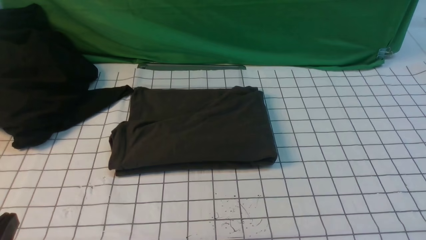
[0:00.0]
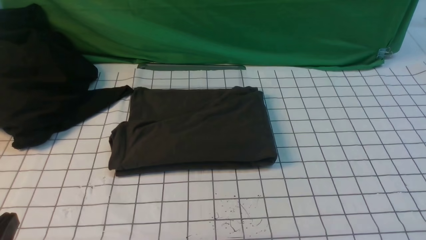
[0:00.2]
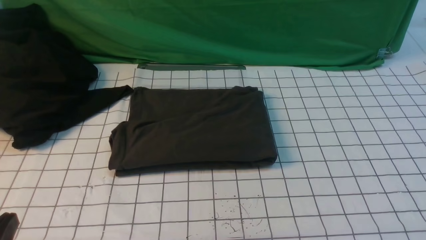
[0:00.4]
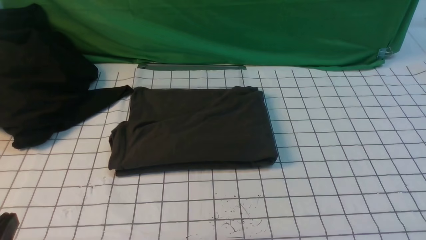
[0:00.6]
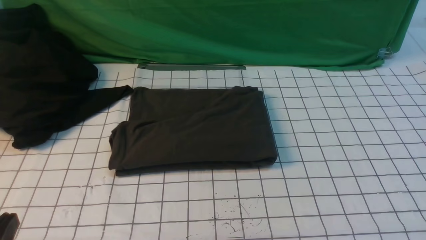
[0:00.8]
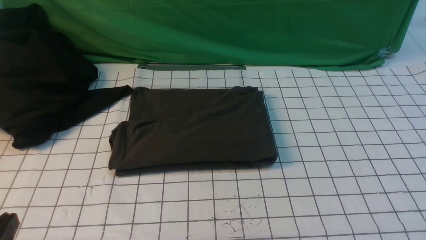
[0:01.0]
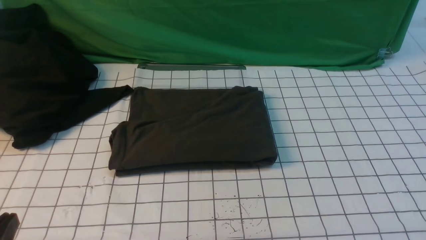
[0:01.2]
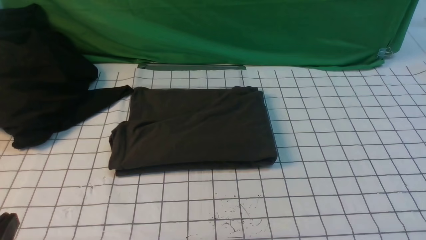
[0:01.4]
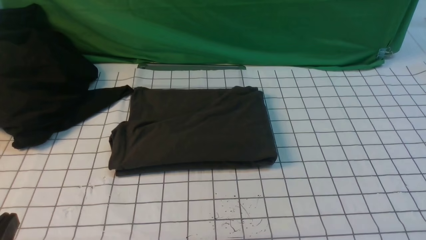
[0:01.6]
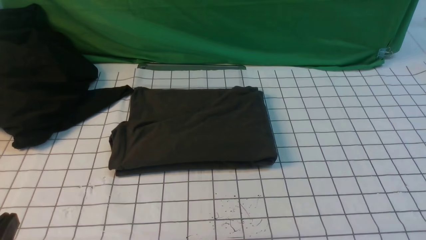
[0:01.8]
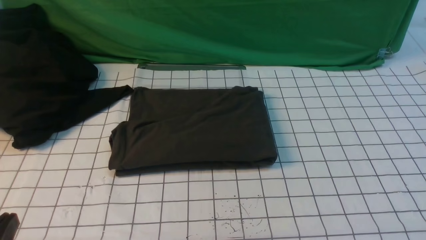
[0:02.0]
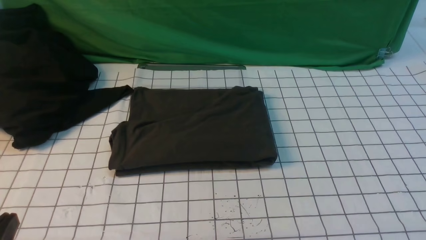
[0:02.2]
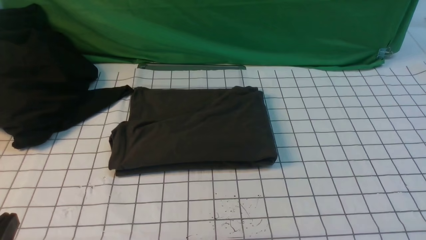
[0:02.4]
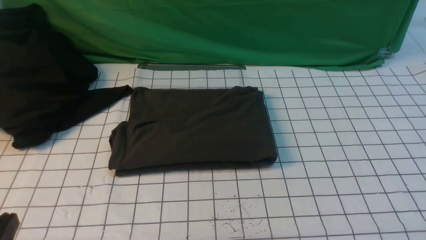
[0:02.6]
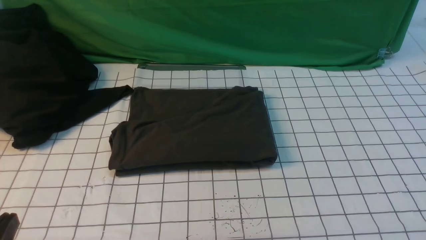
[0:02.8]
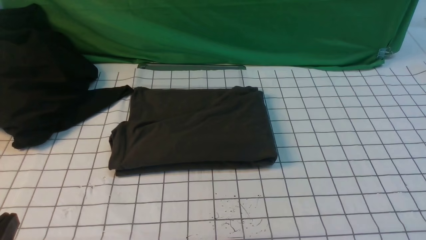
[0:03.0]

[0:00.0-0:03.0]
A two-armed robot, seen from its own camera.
0:01.6 to 0:03.0: The two grippers keep their place.

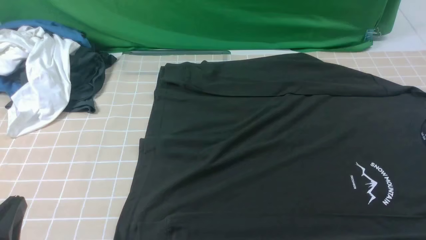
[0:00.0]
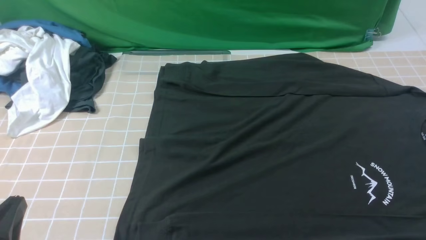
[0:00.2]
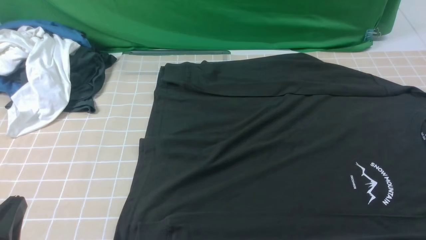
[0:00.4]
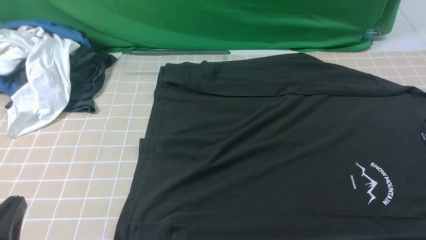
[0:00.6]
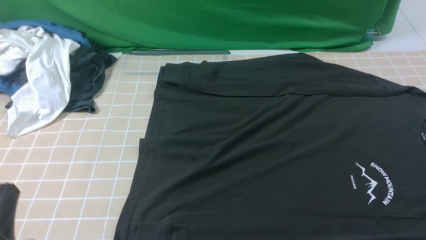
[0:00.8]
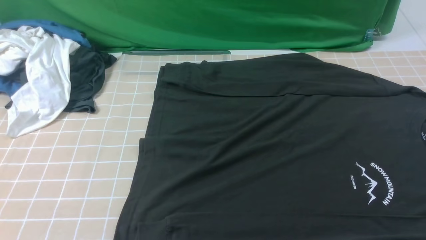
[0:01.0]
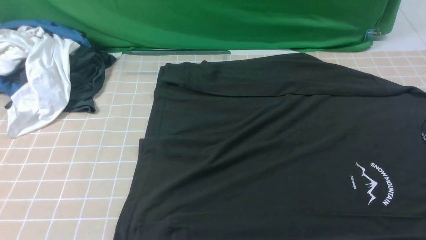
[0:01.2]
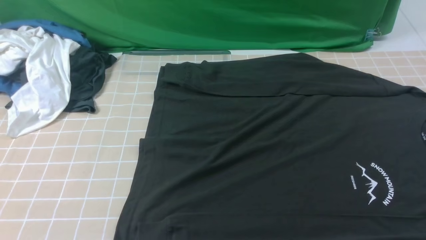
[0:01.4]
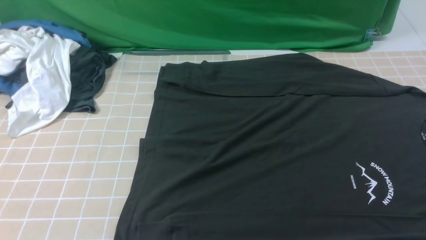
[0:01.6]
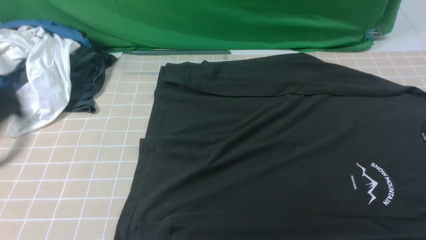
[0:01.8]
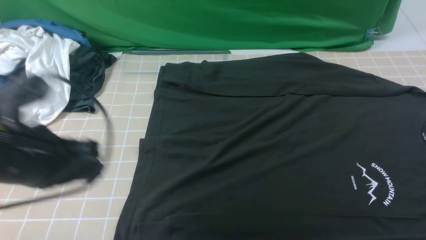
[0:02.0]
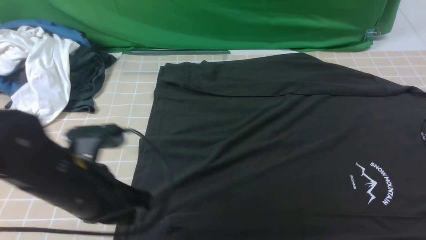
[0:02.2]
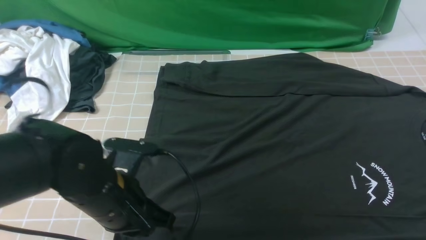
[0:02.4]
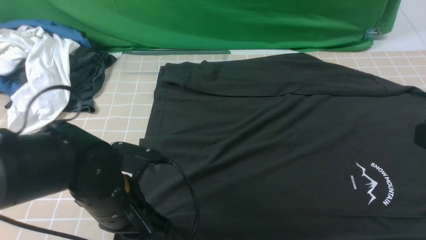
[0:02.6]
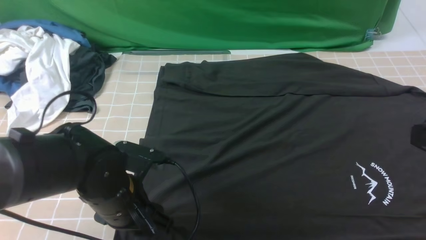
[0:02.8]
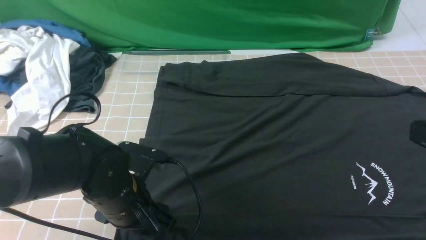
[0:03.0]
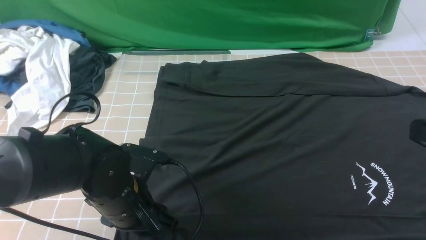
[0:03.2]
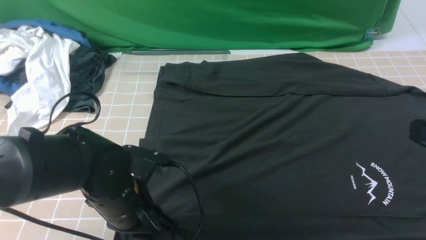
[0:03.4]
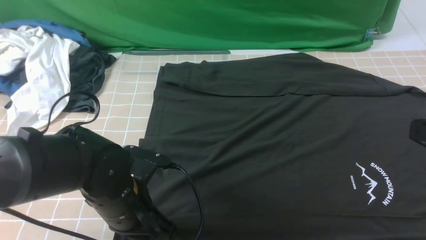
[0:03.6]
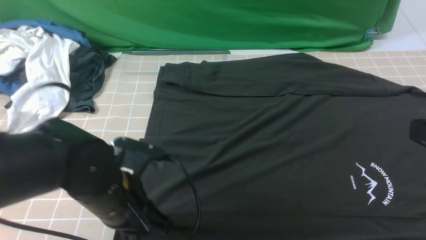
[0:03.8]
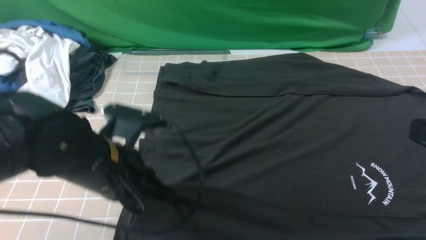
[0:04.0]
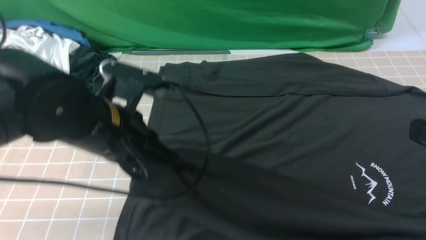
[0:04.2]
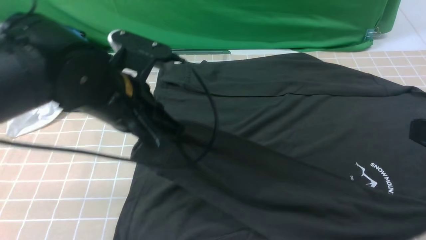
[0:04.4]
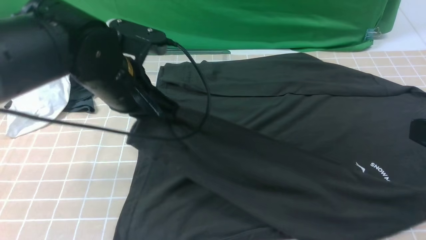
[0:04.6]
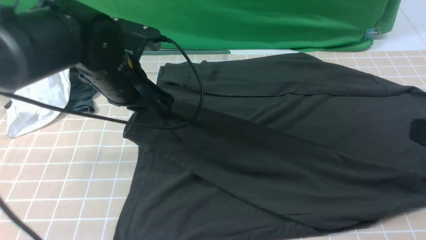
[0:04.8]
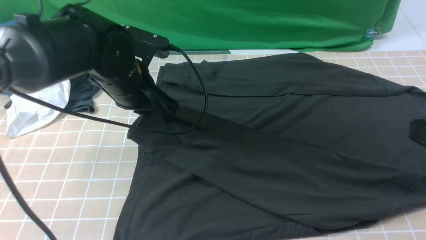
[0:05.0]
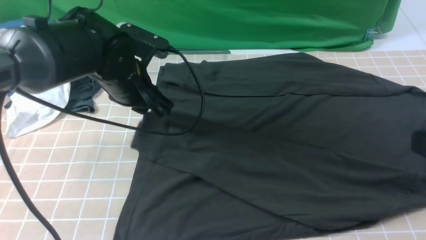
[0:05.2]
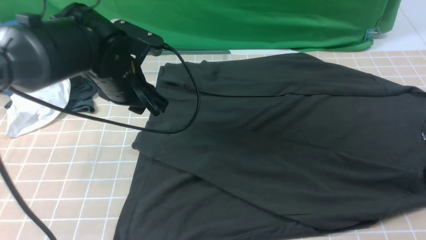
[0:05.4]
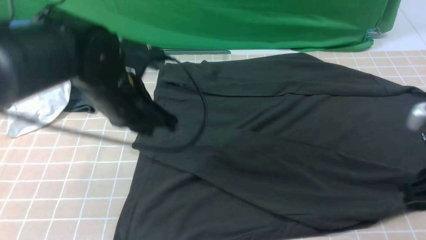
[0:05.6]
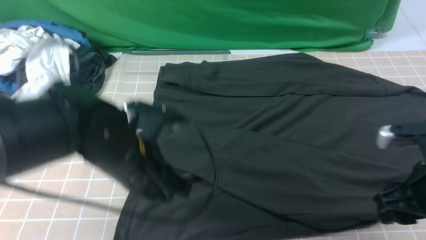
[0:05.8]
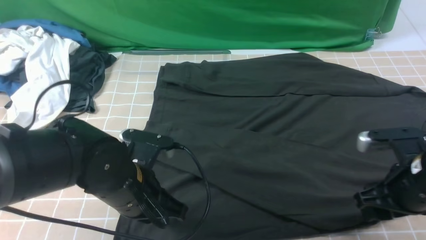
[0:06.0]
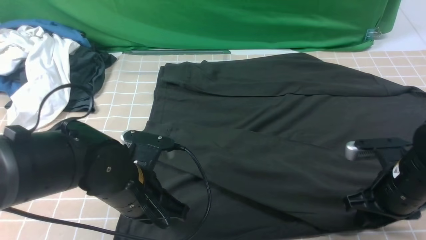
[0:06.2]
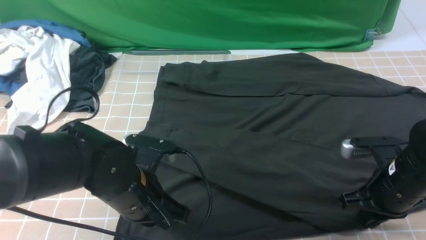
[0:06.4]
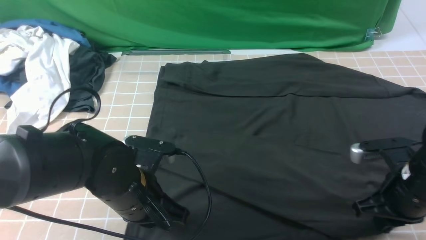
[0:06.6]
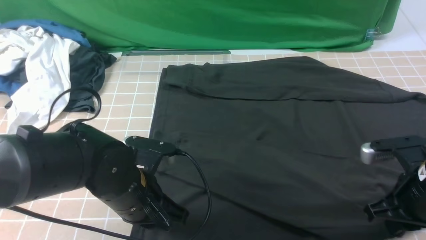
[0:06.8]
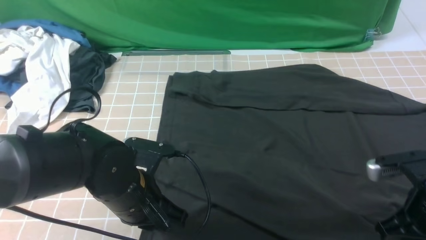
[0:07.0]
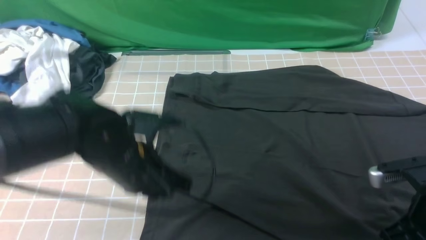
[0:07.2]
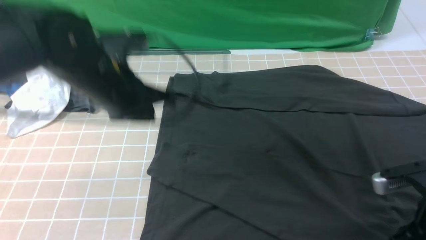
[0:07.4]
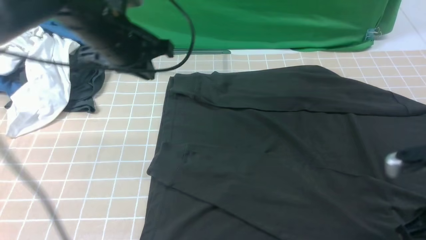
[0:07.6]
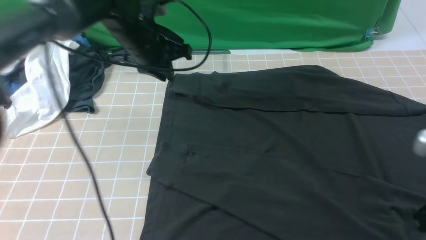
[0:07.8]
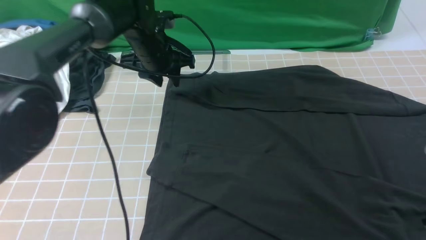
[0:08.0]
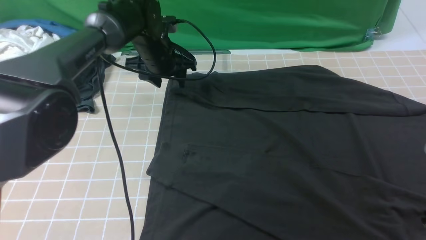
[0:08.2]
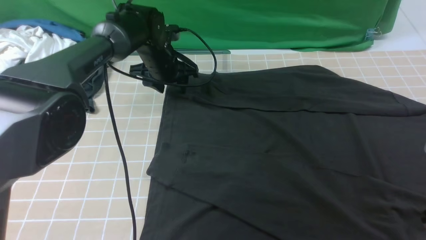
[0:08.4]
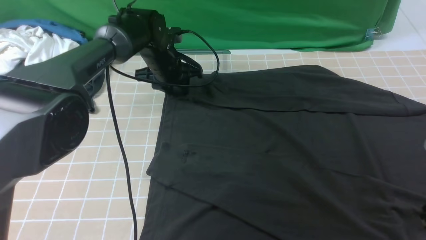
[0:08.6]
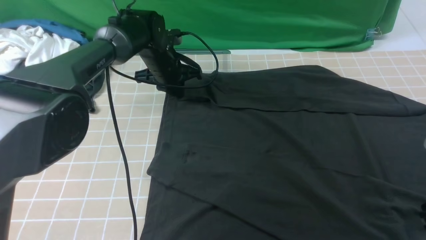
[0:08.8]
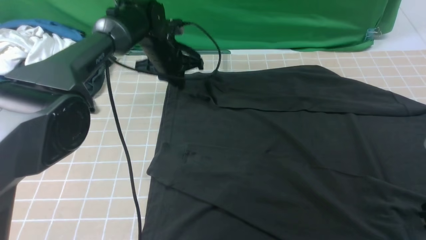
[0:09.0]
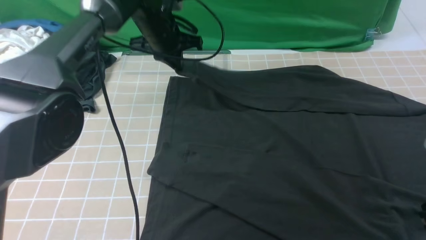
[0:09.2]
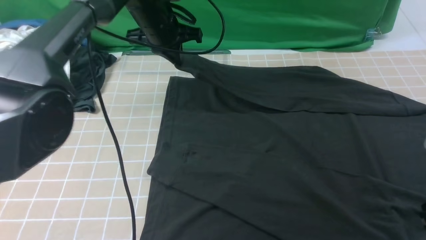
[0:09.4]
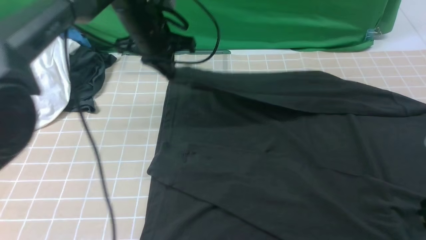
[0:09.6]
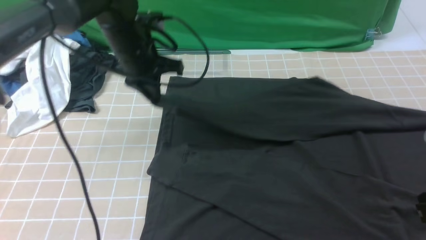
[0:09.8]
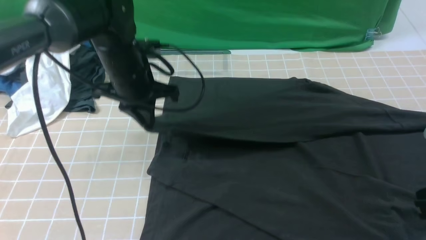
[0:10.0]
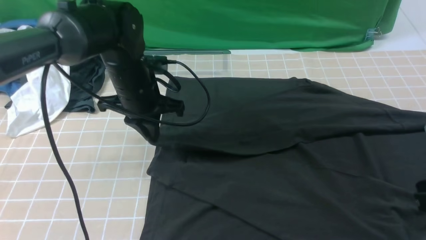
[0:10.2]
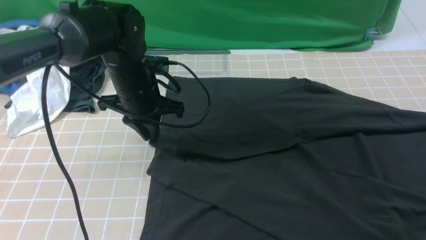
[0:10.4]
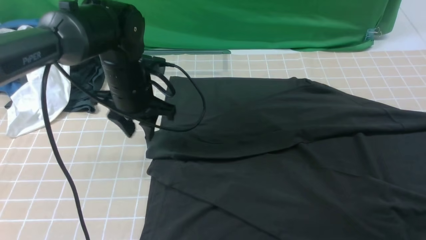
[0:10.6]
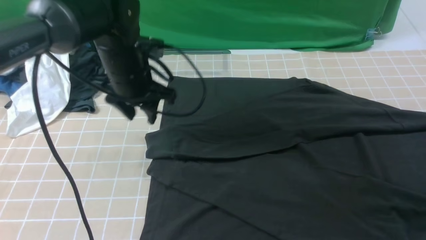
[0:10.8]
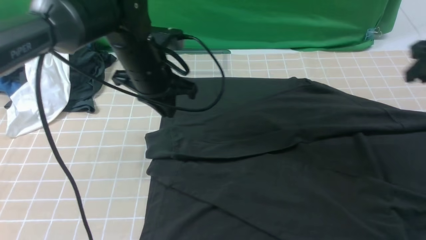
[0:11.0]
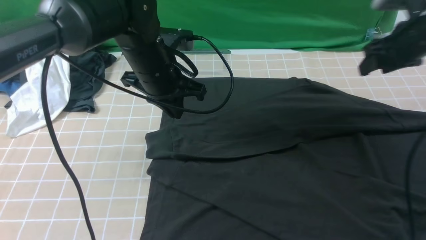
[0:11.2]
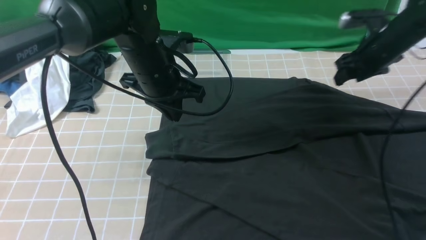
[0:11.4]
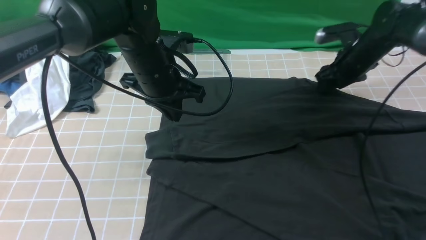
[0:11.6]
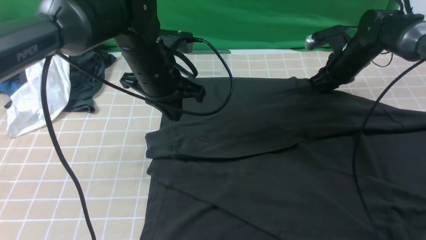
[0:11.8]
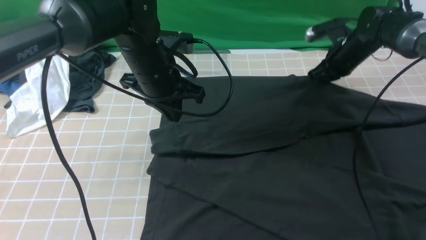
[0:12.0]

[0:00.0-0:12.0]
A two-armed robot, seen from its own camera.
Step, 0:00.0 to 0:03.6: use the left arm to clamp the cuff closest to it.
Step, 0:03.8 to 0:05.2: use the left arm to drag and place the cuff at the centered position on the left edge of the fabric.
Step, 0:05.6 to 0:08.8: use the left arm to clamp the cuff farthest from it.
Step, 0:09.0 to 0:10.4: use the left arm to drag and drop the cuff onto the cuff closest to the left arm.
0:00.0 to 0:01.6: The left gripper goes some 15 cm upward.
0:01.6 to 0:03.0: The left gripper heads downward, to the right and forward, covering some 25 cm, and opens. Meanwhile the right gripper shifts some 15 cm upward, forward and to the left, and closes up.
0:03.0 to 0:04.4: The left gripper goes some 15 cm upward and forward, and closes.
0:04.4 to 0:06.0: The right gripper moves downward and forward, roughly 20 cm, and opens its fingers, while the left gripper is displaced downward and backward by approximately 10 cm.
0:06.0 to 0:07.6: The right gripper heads backward, covering approximately 5 cm, and closes up. The left gripper goes roughly 20 cm forward and upward.
0:07.6 to 0:09.0: The left gripper shifts some 15 cm forward and downward, and opens and closes again.
0:09.0 to 0:10.4: The right gripper shifts by about 5 cm; the left gripper goes some 15 cm backward.
0:10.4 to 0:12.0: The right gripper moves forward, approximately 35 cm, and opens and closes again. The left gripper changes place by roughly 5 cm.

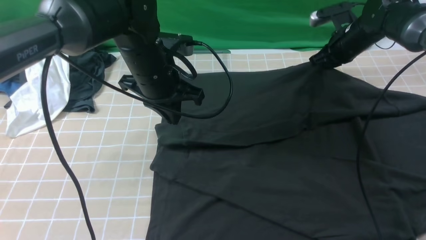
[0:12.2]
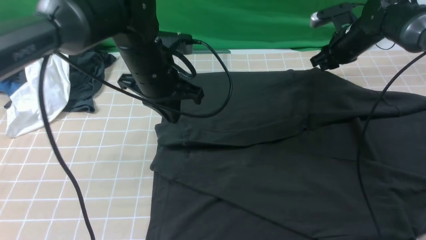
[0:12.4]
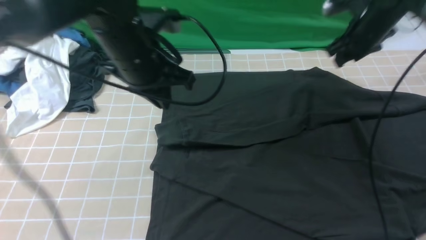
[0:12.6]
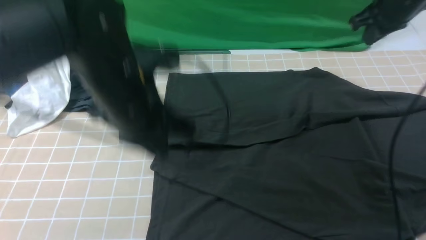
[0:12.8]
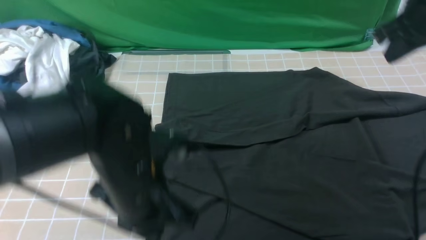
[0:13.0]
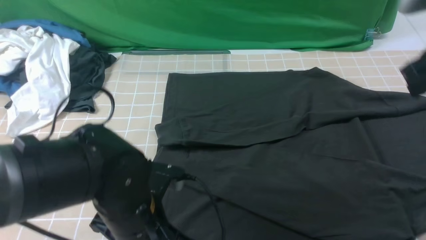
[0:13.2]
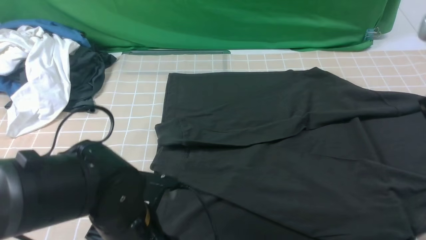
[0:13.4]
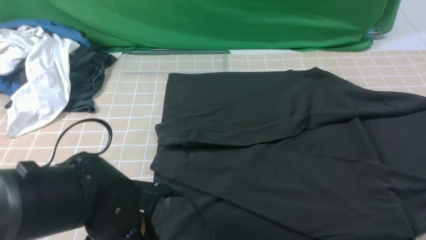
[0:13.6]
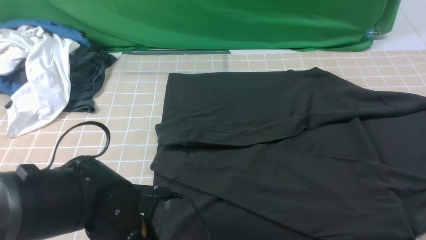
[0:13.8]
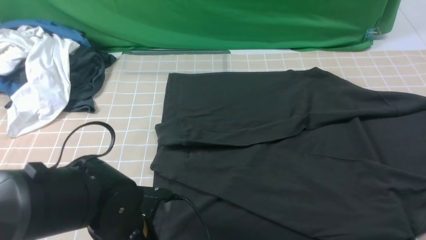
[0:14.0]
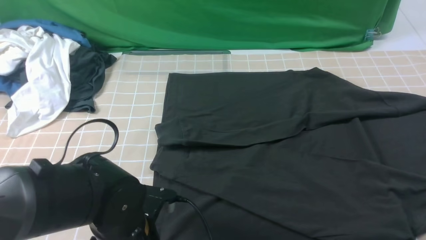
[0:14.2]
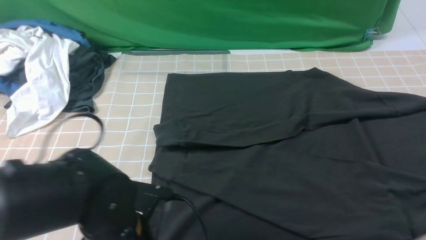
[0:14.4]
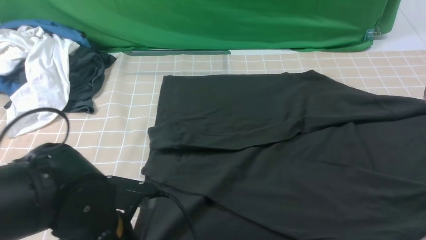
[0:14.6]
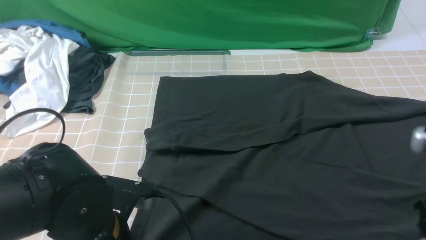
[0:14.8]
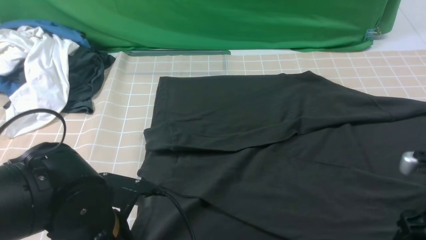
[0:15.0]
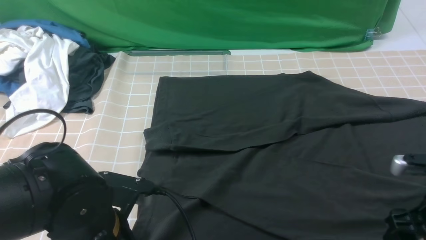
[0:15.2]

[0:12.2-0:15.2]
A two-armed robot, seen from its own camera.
0:12.2 to 0:13.8: The left gripper travels backward and downward by about 25 cm, and opens, while the right gripper heads backward and upward, covering some 35 cm.
0:13.8 to 0:15.2: The right gripper is displaced downward by approximately 20 cm, and opens; the left gripper closes.
